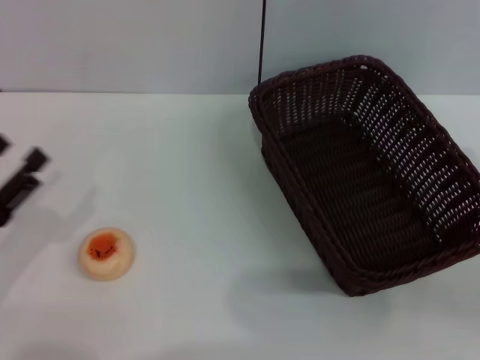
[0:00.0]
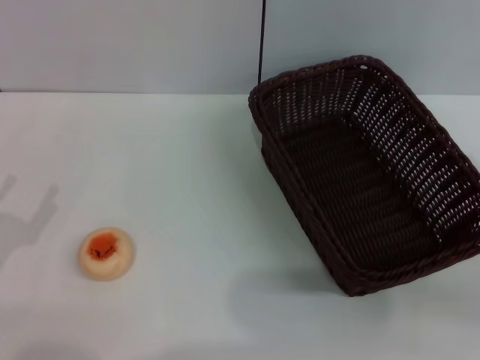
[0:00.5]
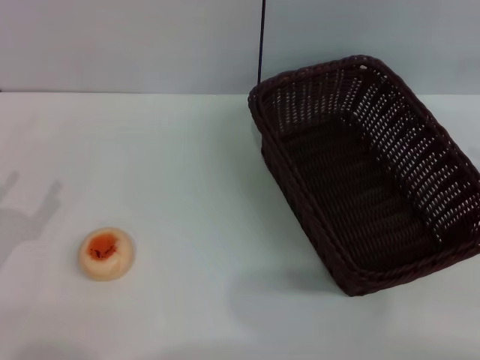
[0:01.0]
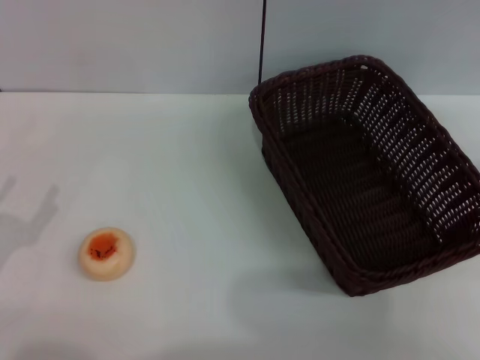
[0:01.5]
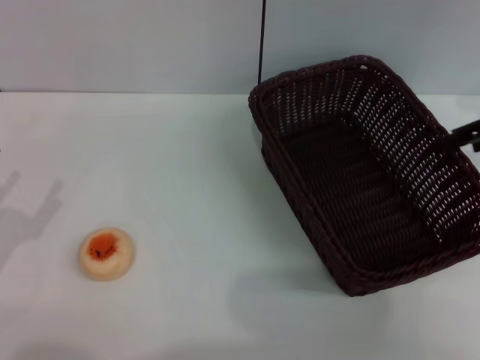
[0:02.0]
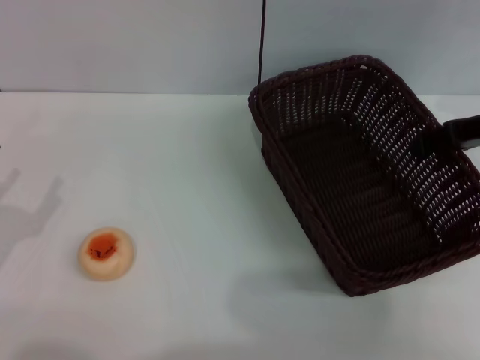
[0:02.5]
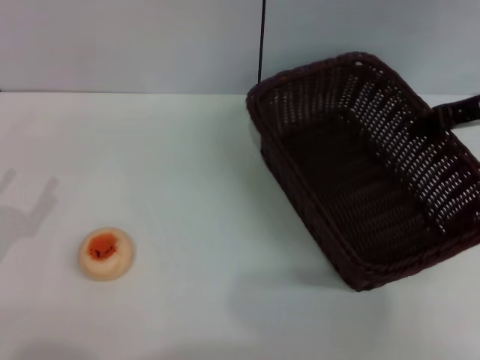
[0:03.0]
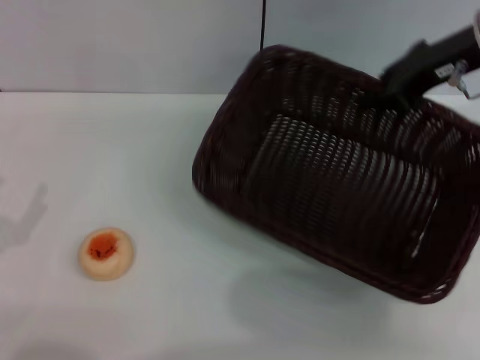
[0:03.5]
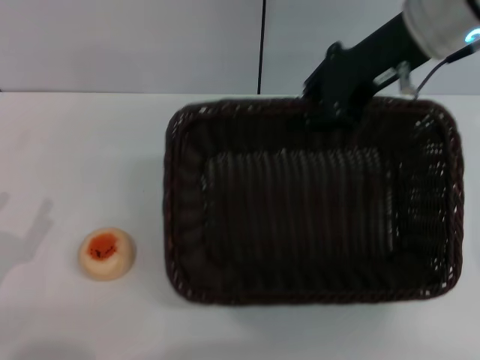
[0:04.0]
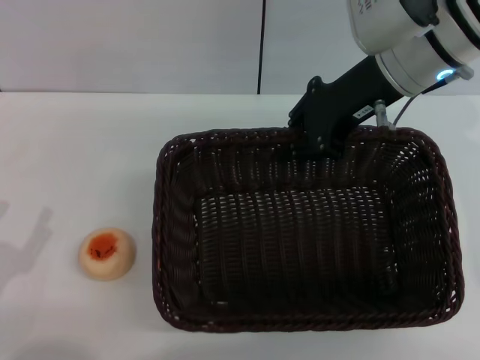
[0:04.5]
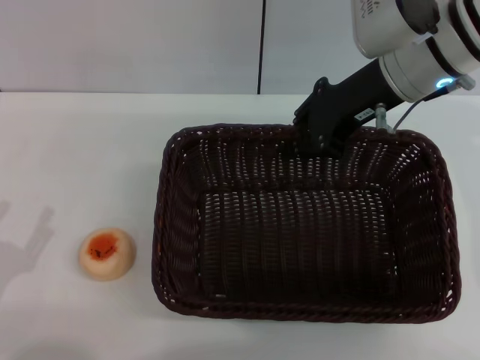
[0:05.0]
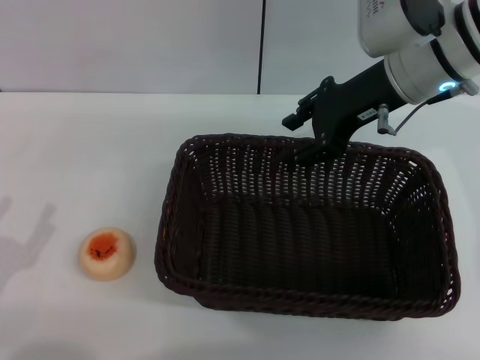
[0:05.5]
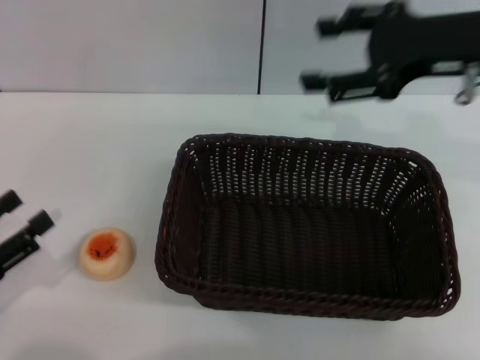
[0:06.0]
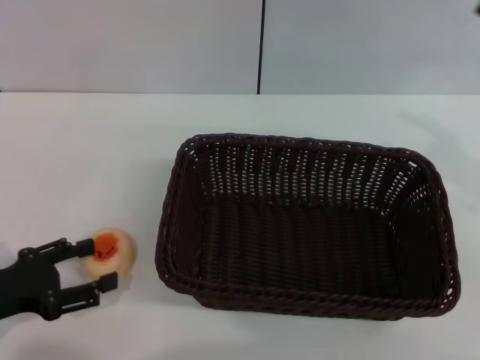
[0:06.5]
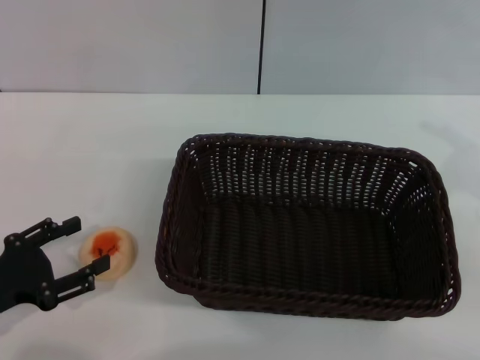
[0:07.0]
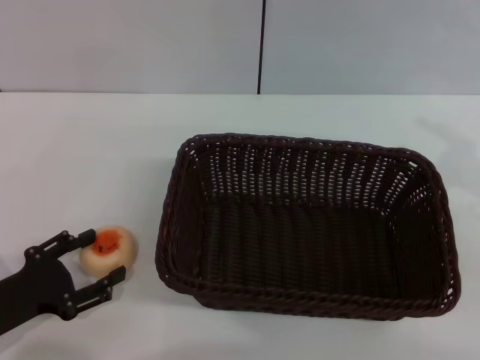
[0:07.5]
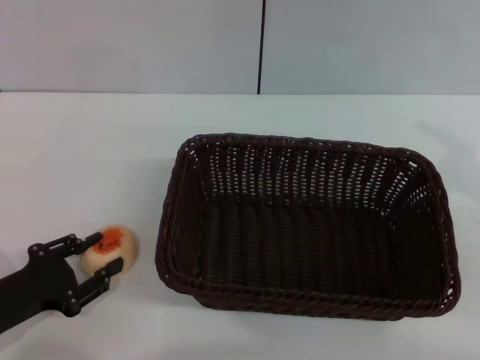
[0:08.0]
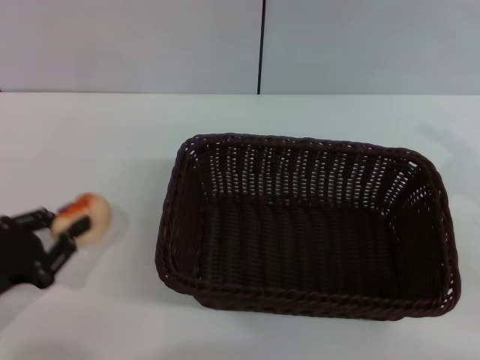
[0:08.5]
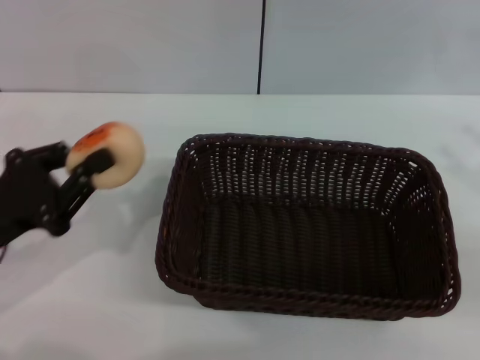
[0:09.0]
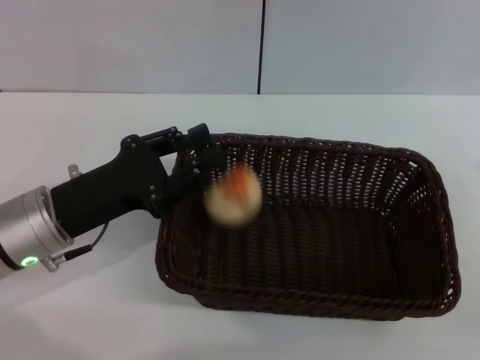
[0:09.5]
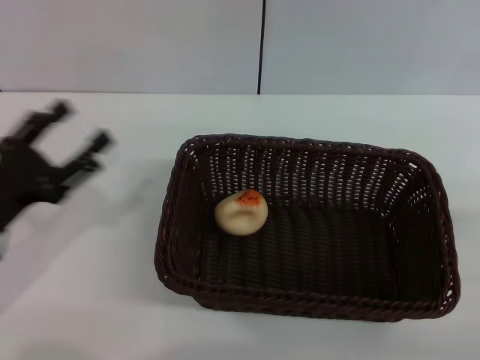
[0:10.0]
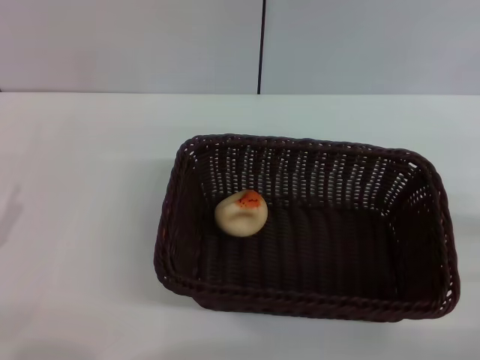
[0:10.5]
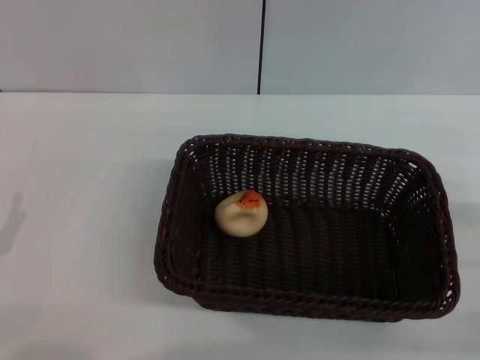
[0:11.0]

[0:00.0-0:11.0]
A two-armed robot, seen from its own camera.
Step, 0:00.0 to 0:05.5: Move the basket to the center of view with the right gripper.
Step, 0:06.0 to 0:08.5: Pick up the egg yolk pastry with the left gripper.
Step, 0:09.0 to 0:09.5: Place the egg yolk pastry into the basket with the left gripper.
0:00.0 to 0:02.0: The right gripper is displaced forward and upward by roughly 20 cm.
0:02.0 to 0:03.5: The right gripper goes about 10 cm to the left, and closes its fingers.
0:03.5 to 0:05.5: The right gripper is displaced to the left by about 5 cm.
0:05.5 to 0:07.5: The left gripper moves about 5 cm, while the right gripper is displaced to the right and backward by roughly 20 cm, and opens its fingers.
0:07.5 to 0:09.0: The left gripper travels upward by about 5 cm, and closes.
0:09.0 to 0:11.0: The left gripper heads backward and downward, covering some 10 cm, moves about 5 cm to the right and comes back, and opens up. The right gripper is displaced downward by about 5 cm.

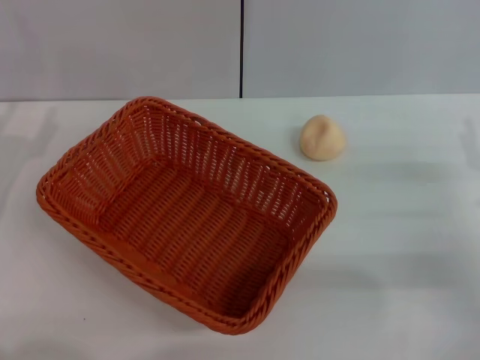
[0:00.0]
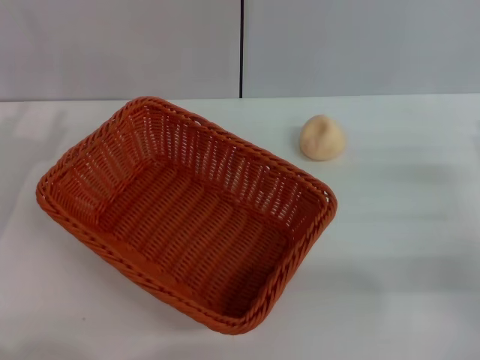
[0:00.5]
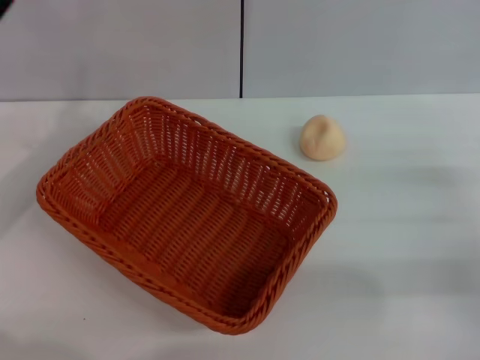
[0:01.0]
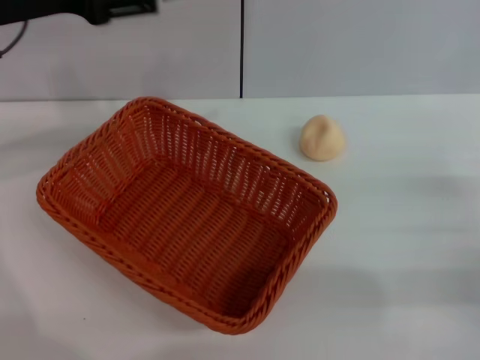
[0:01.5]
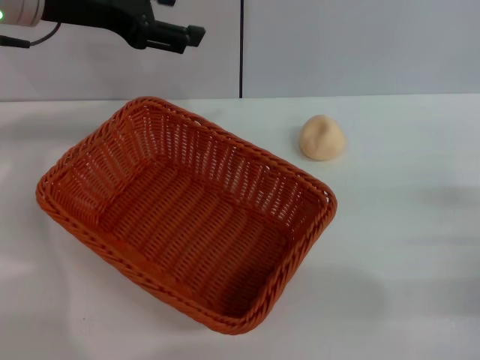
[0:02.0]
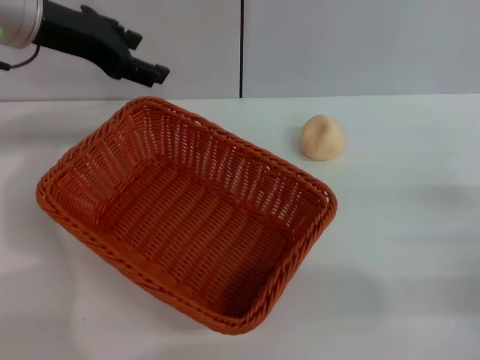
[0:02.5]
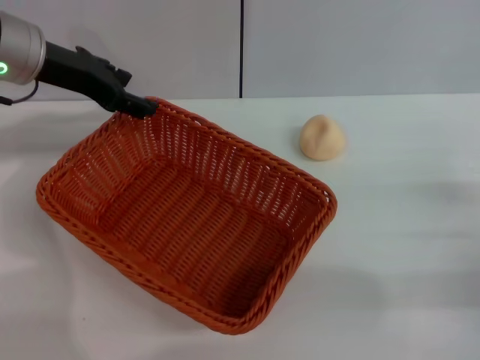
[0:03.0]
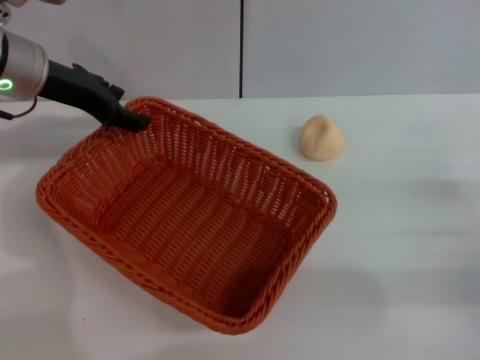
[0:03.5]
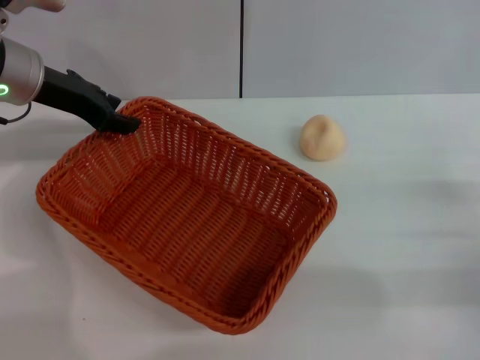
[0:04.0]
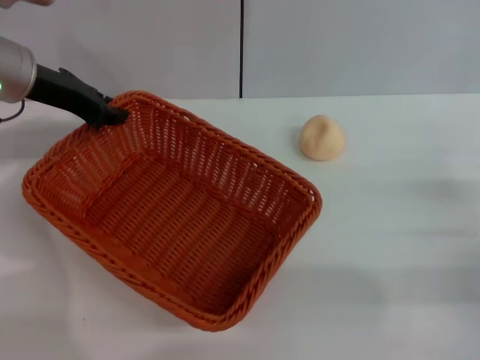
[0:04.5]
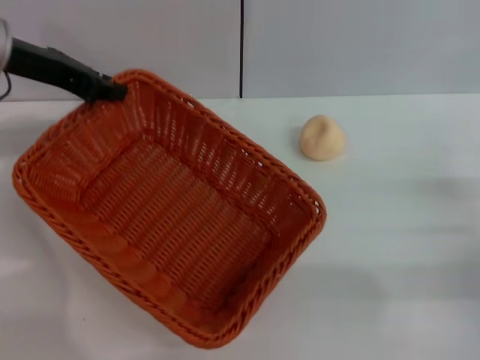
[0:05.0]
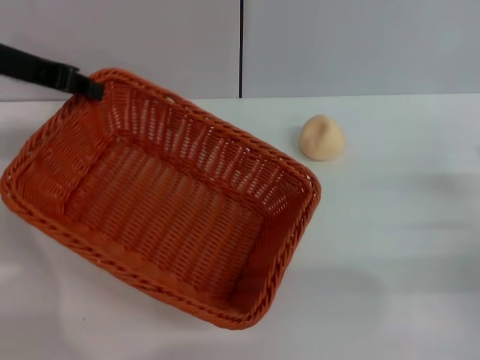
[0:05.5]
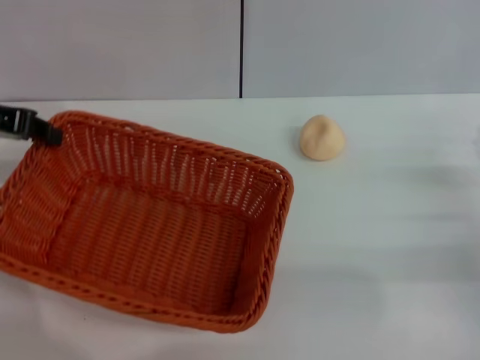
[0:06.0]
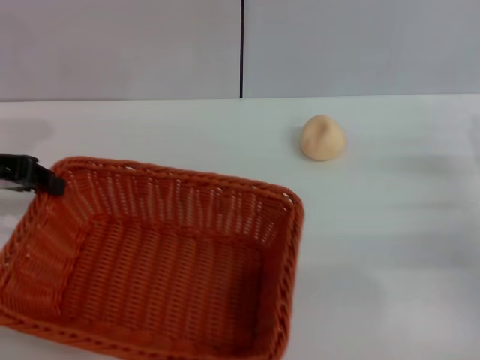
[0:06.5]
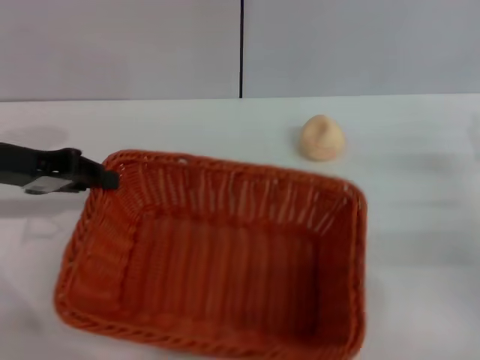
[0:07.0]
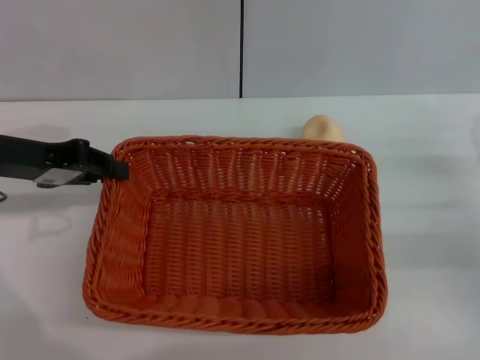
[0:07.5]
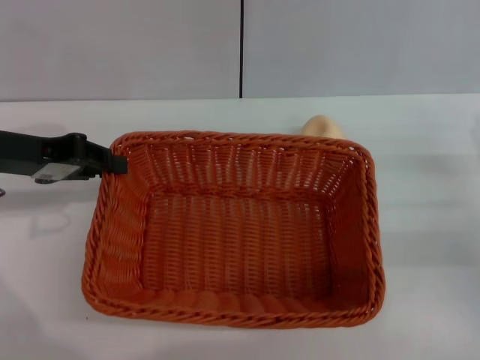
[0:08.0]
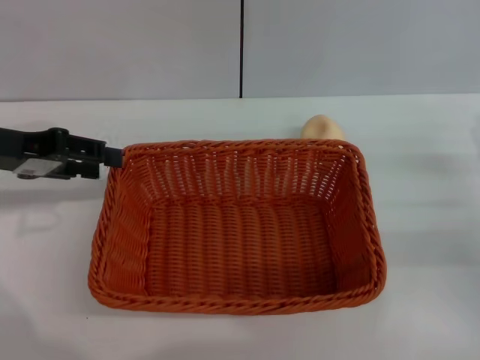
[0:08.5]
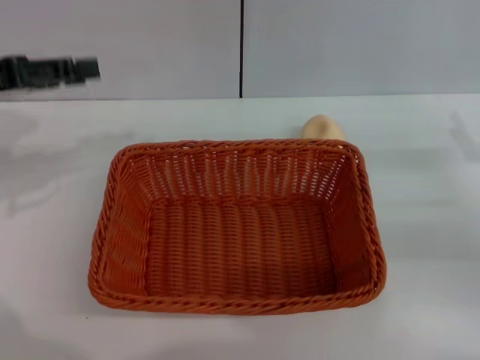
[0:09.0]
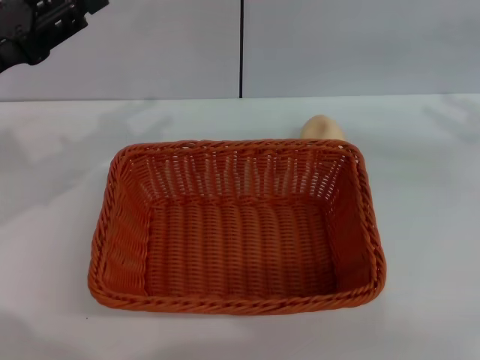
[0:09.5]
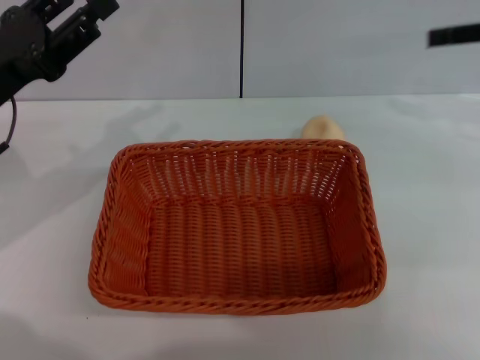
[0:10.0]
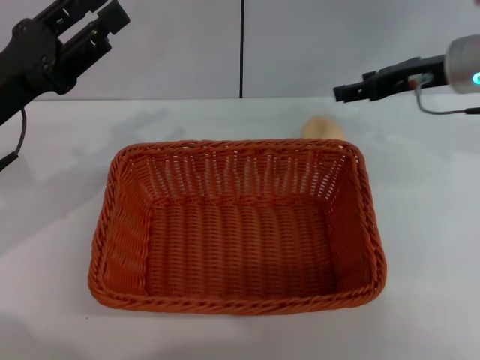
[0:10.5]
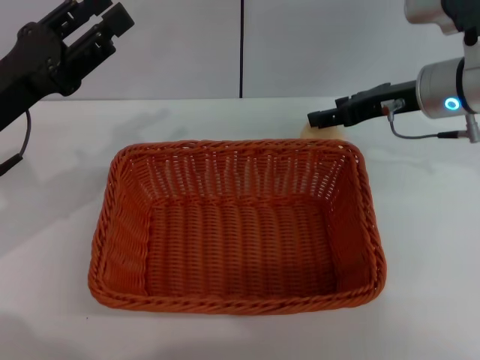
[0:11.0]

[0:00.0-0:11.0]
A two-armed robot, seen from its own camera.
Step, 0:00.0 to 0:08.5: Move the basket to the center of view with the left gripper.
0:00.0 to 0:02.0: The left gripper is displaced upward, forward and to the right by roughly 25 cm.
0:02.0 to 0:03.5: The left gripper travels downward by some 5 cm.
0:03.5 to 0:05.5: The left gripper moves upward, about 5 cm, and closes.
0:05.5 to 0:07.5: The left gripper is displaced downward and backward by roughly 10 cm.
0:07.5 to 0:09.0: The left gripper changes place by roughly 5 cm, and opens its fingers.
0:09.0 to 0:11.0: The right gripper moves forward, to the left and upward, some 20 cm. The left gripper shifts some 10 cm downward and to the right.

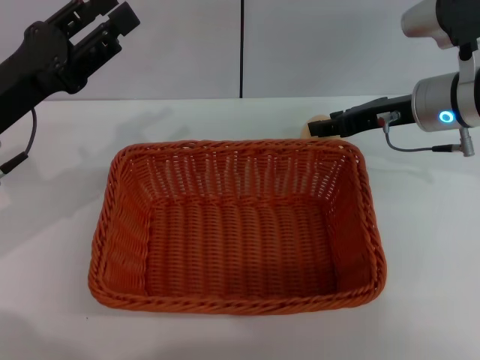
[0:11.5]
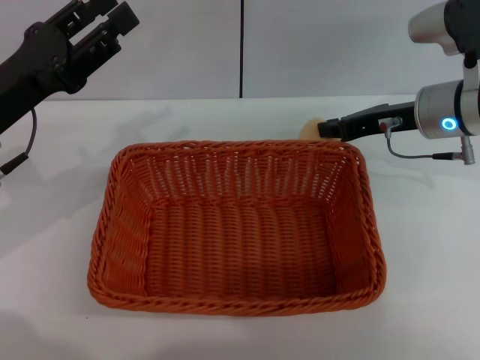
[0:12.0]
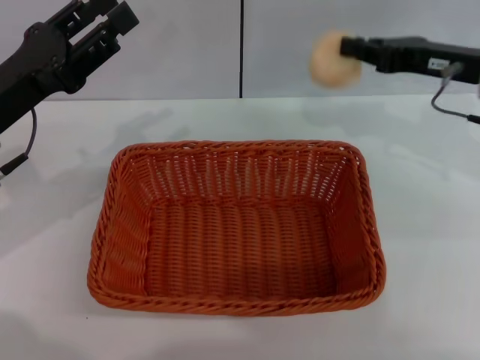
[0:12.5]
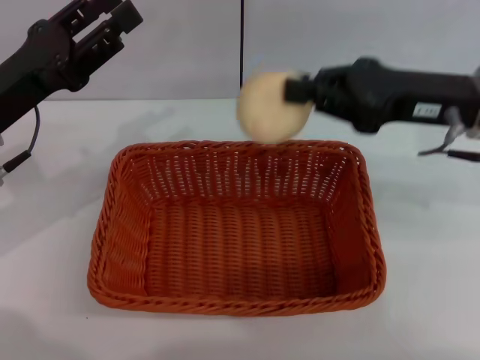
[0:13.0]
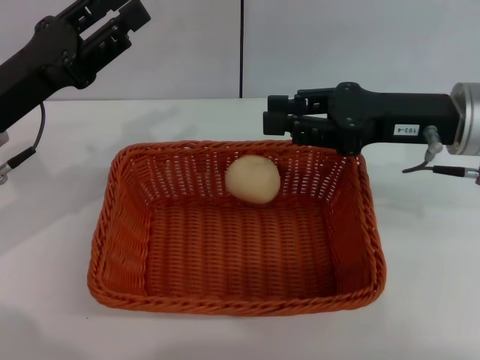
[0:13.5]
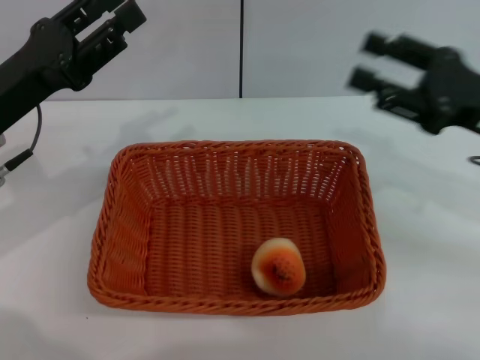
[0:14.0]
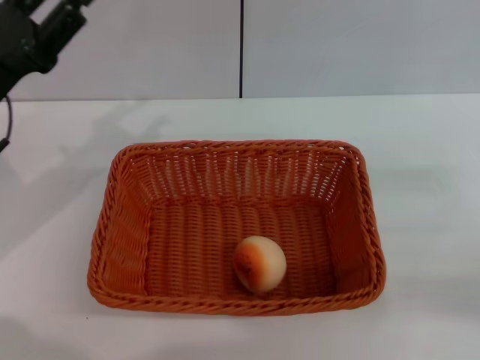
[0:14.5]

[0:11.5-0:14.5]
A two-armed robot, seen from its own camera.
Step, 0:12.5 to 0:13.5: Place the egg yolk pastry into the basket with the right gripper.
0:11.5 to 0:13.0: The right gripper is displaced backward and upward by some 10 cm, and closes its fingers.
0:13.0 to 0:14.5: The right gripper heads to the right, backward and downward, covering about 20 cm, and opens its fingers.
